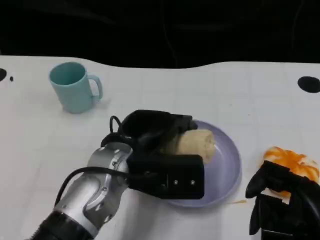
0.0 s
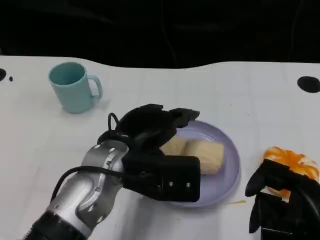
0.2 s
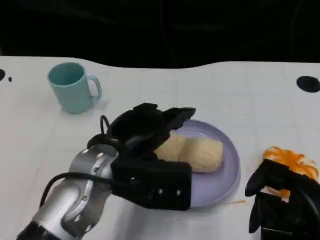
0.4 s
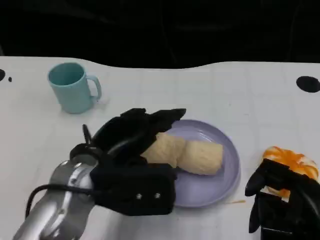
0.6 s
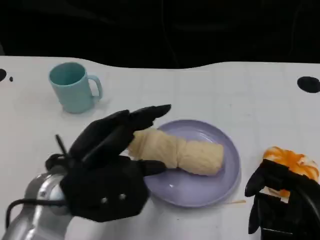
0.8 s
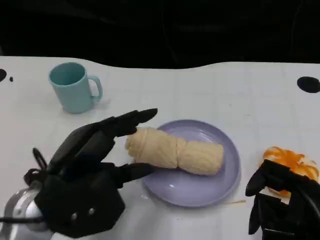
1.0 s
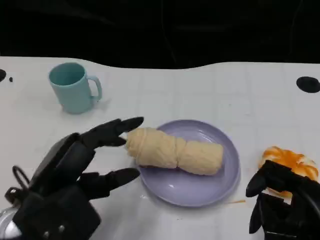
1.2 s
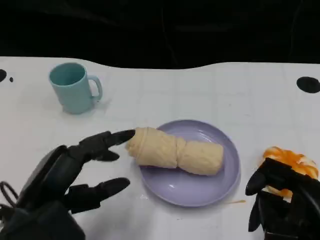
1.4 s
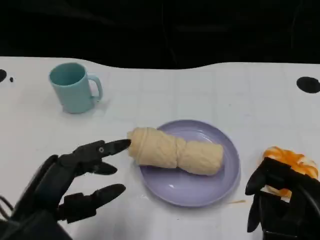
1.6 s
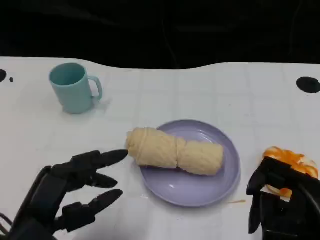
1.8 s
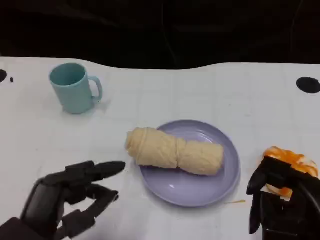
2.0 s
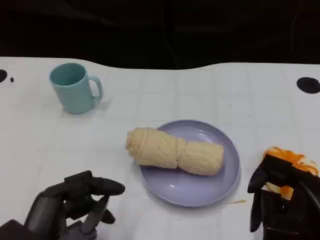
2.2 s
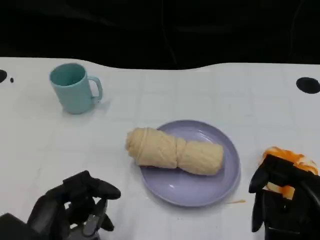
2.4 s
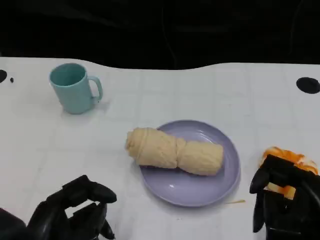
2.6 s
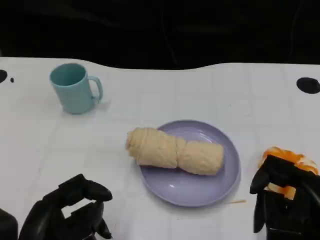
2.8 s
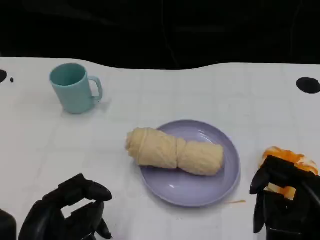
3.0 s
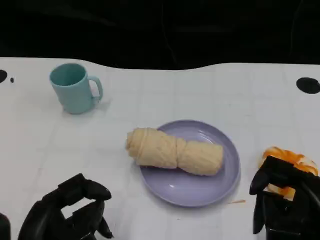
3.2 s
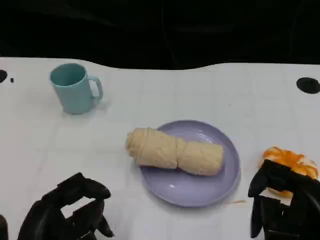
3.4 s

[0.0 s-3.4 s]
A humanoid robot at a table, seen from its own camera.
Task of the whole recording: Grasp the towel on the left side of the plate with the left hand and place it into the plate.
0.0 to 1.6 s: The left hand goes roughly 15 cm to the left and backward.
